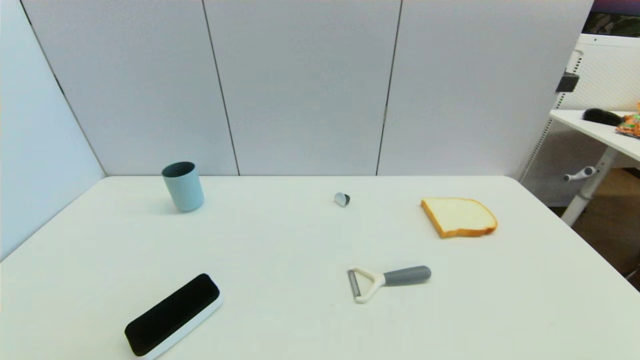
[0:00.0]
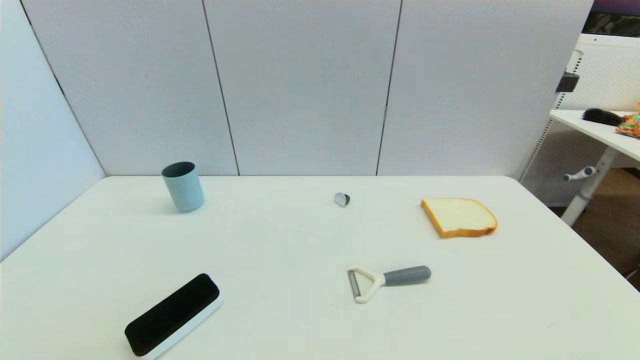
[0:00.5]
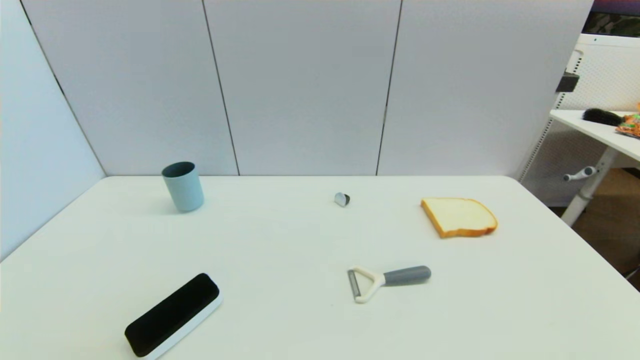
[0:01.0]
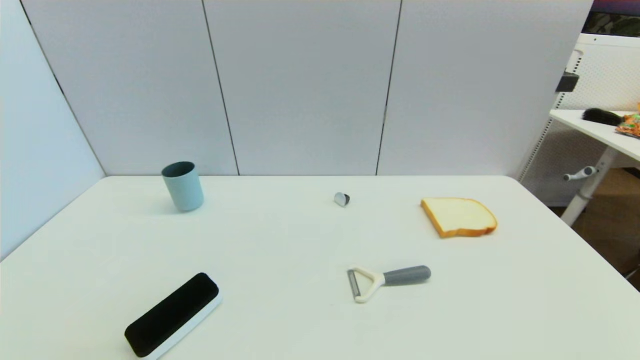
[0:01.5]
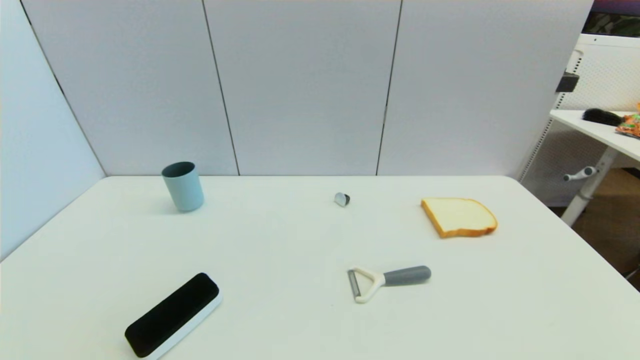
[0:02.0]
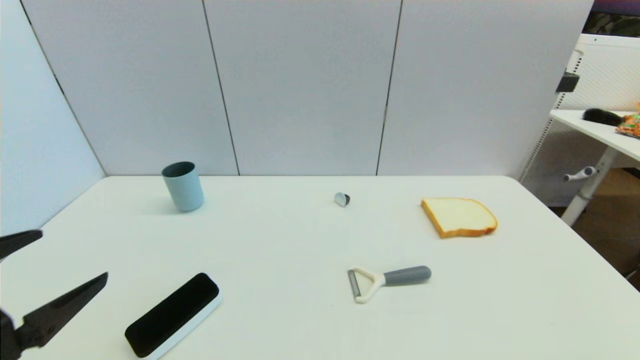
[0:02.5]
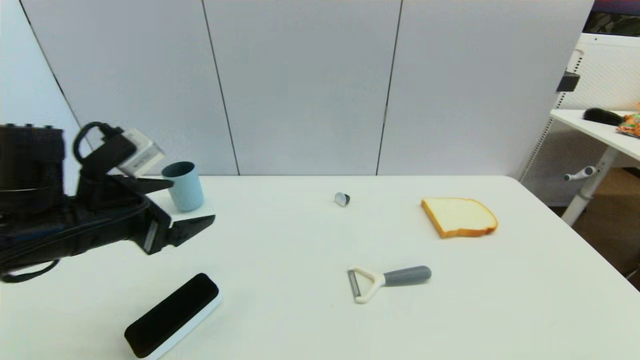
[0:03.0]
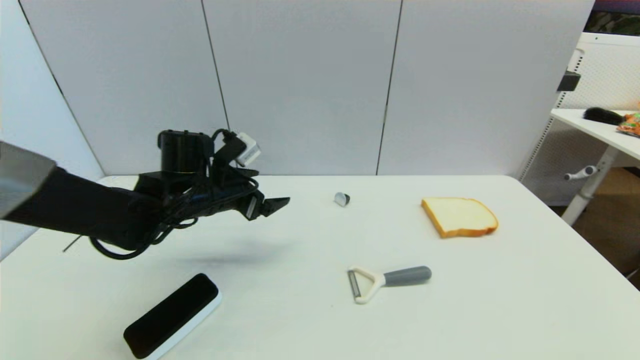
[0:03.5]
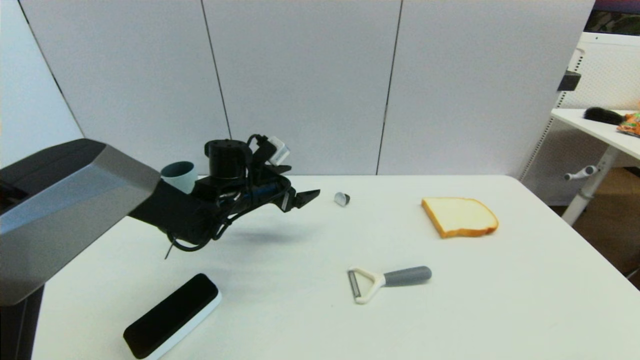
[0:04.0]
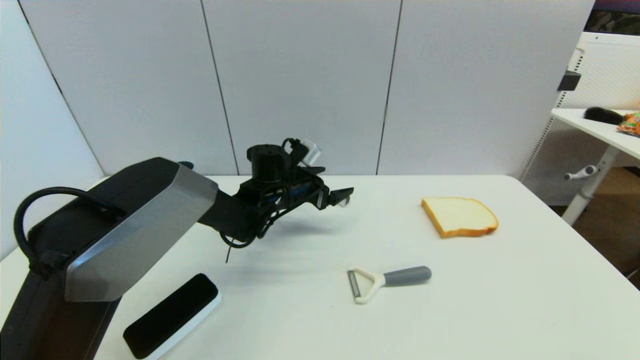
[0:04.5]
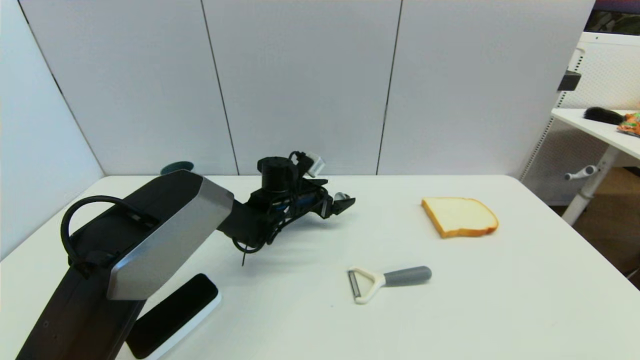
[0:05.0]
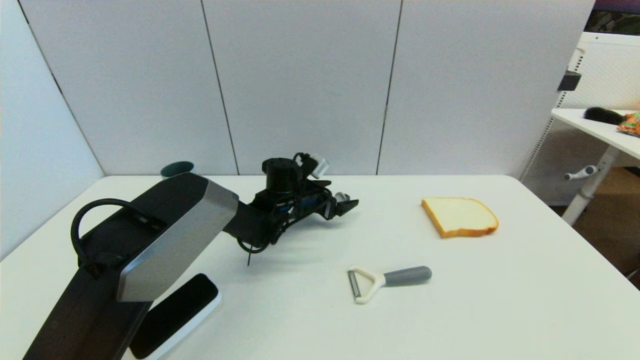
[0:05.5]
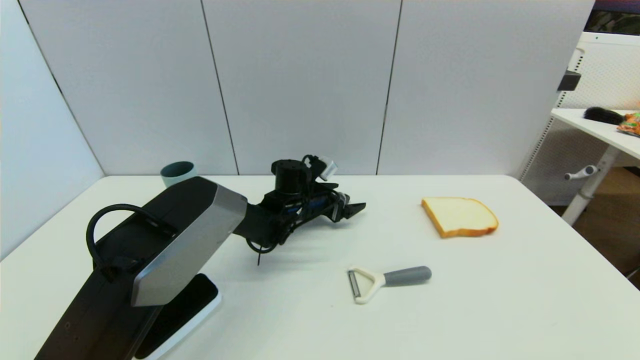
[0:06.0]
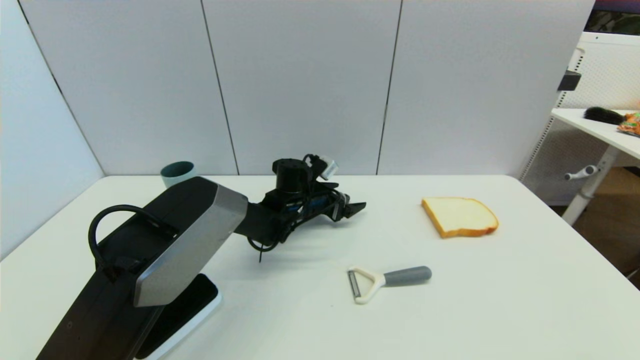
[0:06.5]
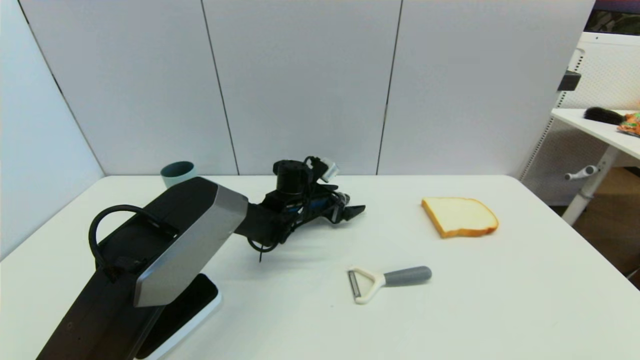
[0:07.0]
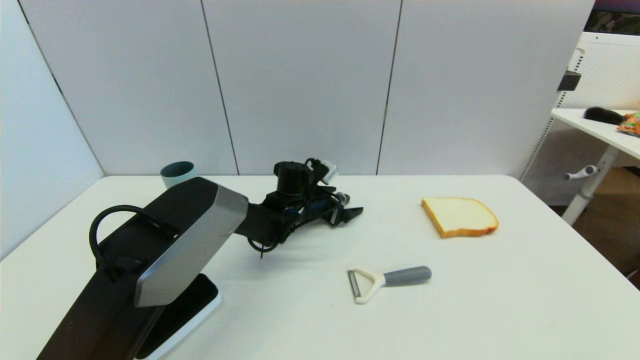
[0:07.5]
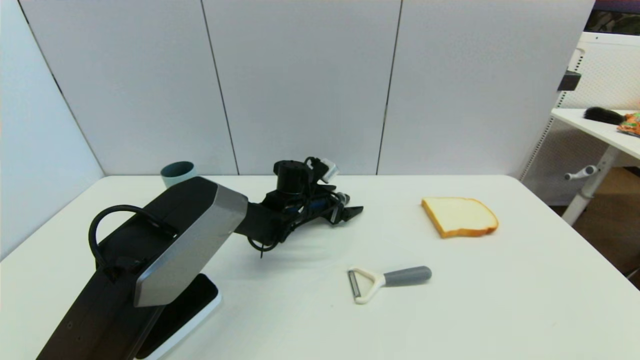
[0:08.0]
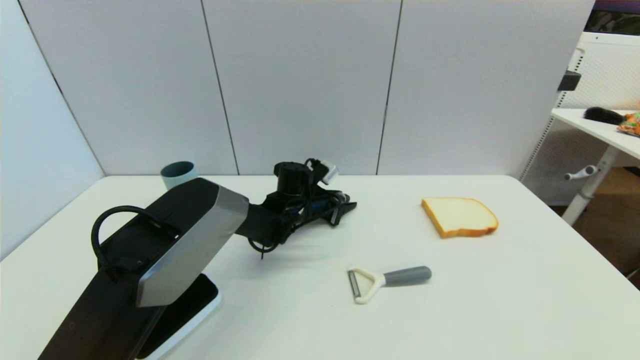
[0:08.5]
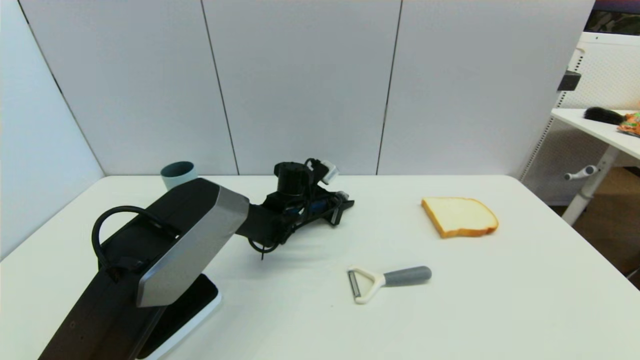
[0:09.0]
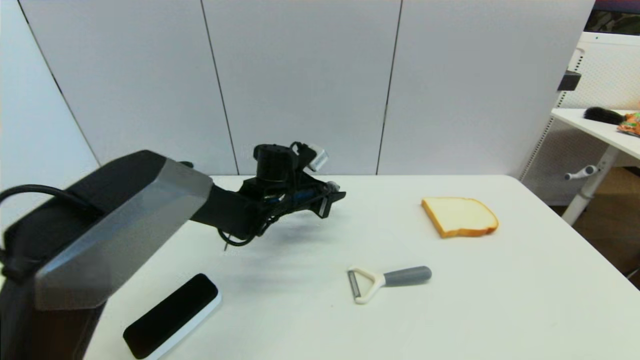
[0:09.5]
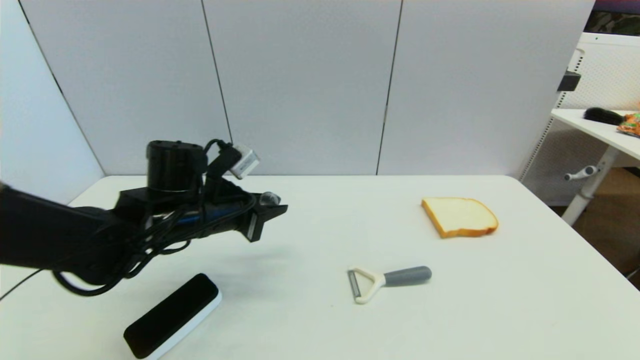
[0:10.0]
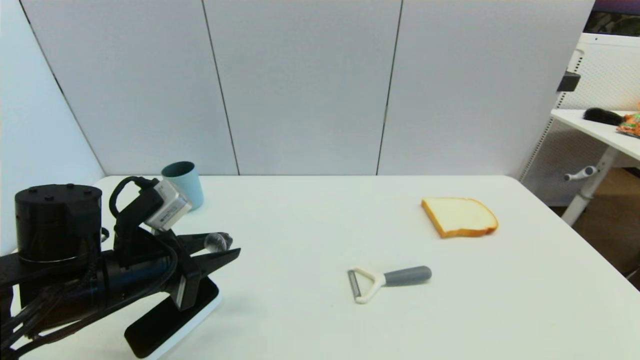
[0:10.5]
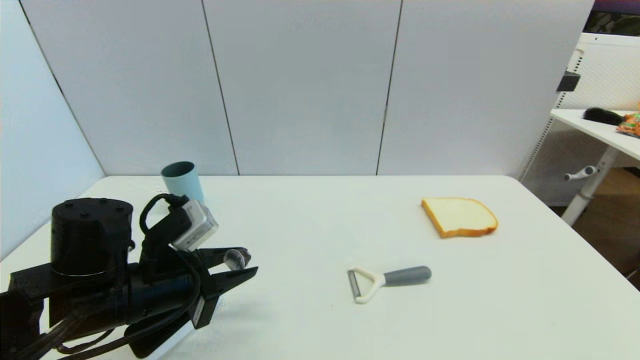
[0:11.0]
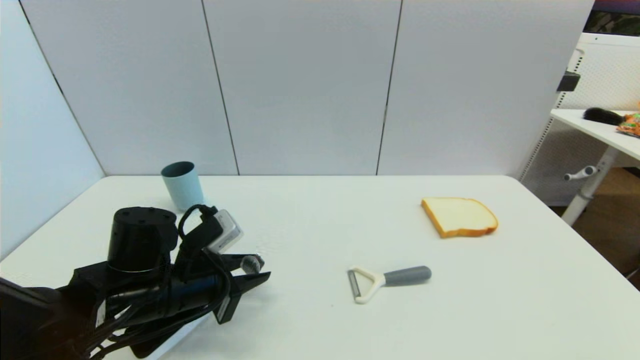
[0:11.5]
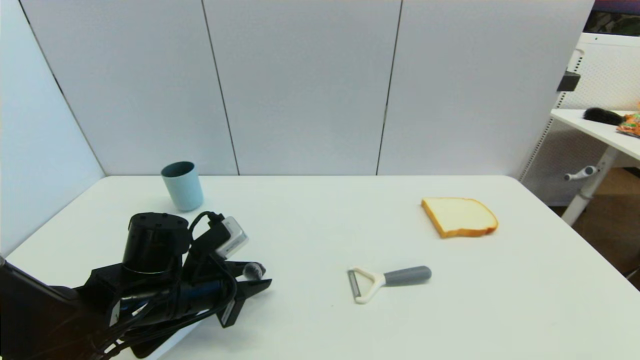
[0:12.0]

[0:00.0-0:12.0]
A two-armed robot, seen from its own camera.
Step, 0:02.5 to 0:08.5: Grasp the coffee capsule with left gripper.
0:02.0 to 0:04.0: The left gripper heads forward and to the right, covering some 50 cm.
0:04.0 to 0:06.0: The left gripper shifts approximately 10 cm to the right and downward.
0:06.0 to 0:08.0: Both grippers stay about where they are.
0:08.0 to 0:10.0: The left gripper goes roughly 25 cm backward, to the left and upward, and closes its fingers.
0:10.0 to 0:12.0: The left gripper travels downward and backward by about 10 cm.

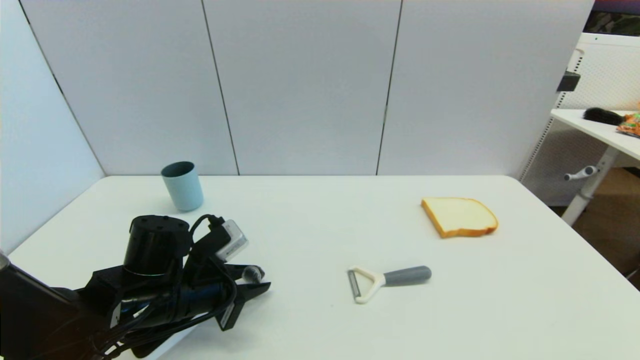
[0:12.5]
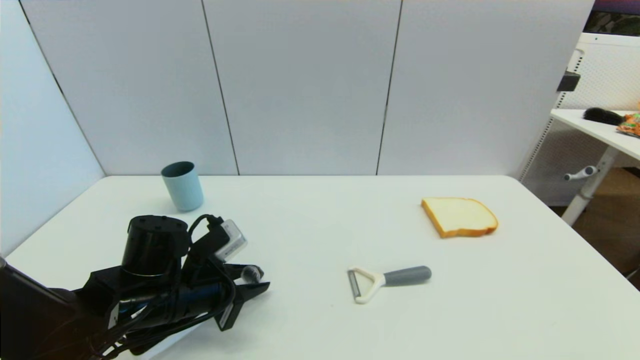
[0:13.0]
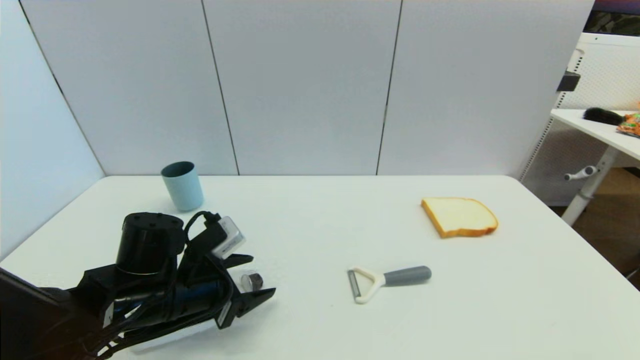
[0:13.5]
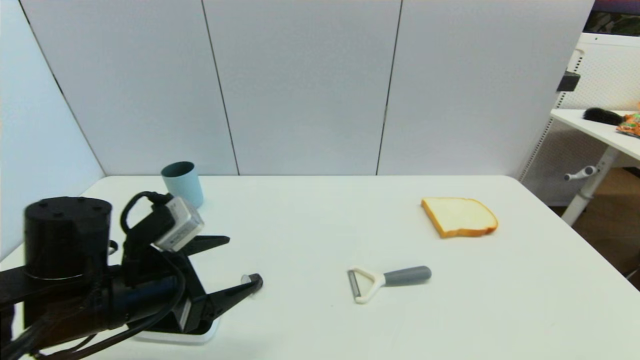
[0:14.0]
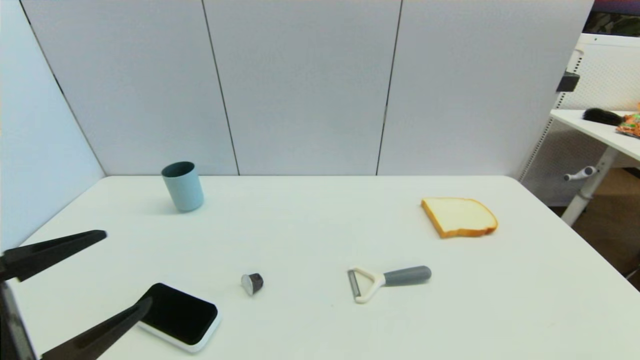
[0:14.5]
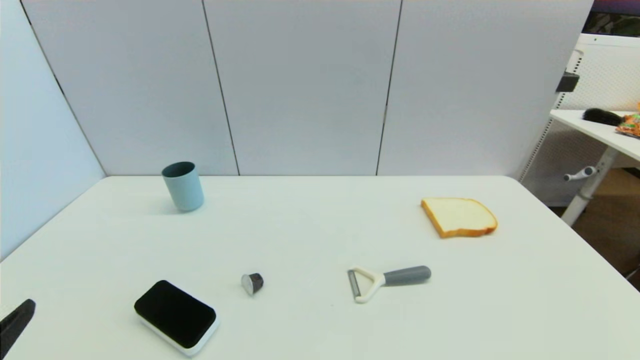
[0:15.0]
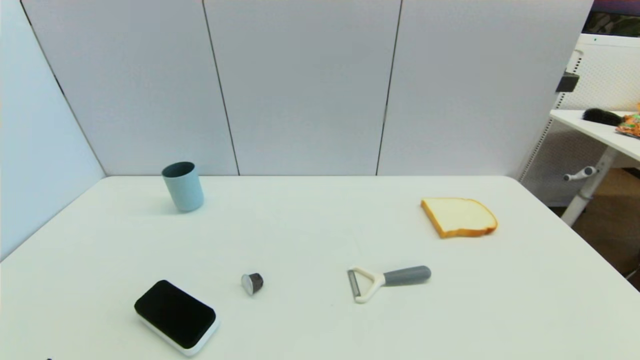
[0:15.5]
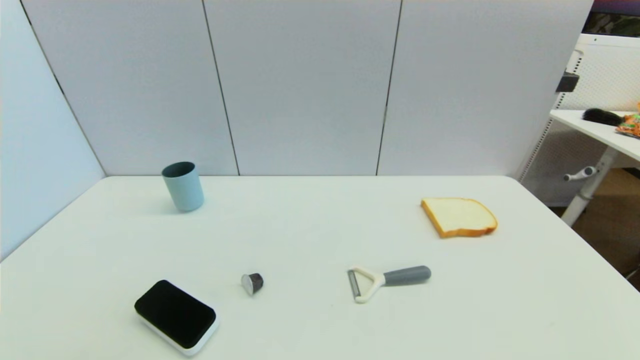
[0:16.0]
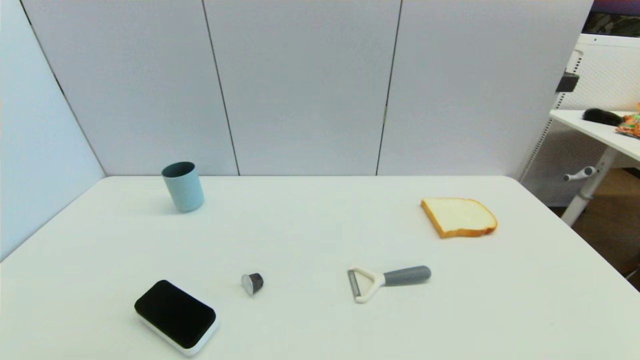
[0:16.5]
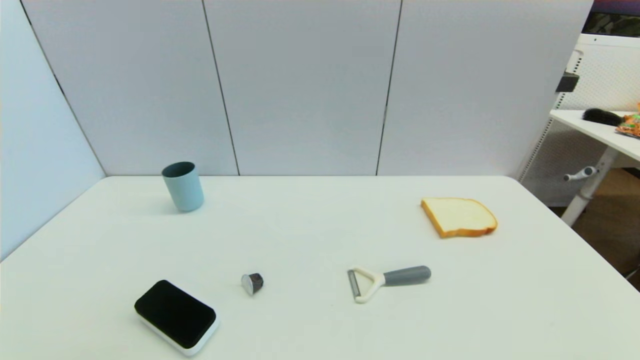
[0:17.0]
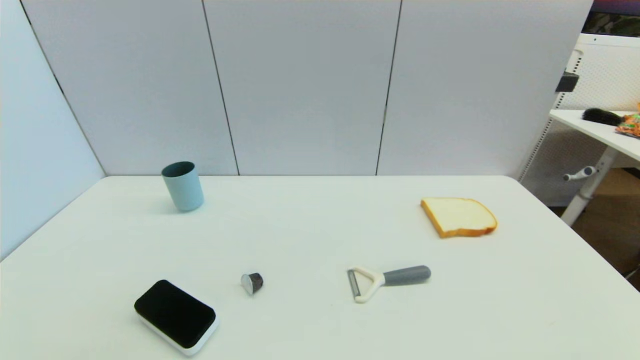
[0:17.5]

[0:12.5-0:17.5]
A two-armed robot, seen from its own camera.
0:12.5 to 0:15.0: The left gripper goes roughly 25 cm backward, to the left and upward, and opens its fingers.
